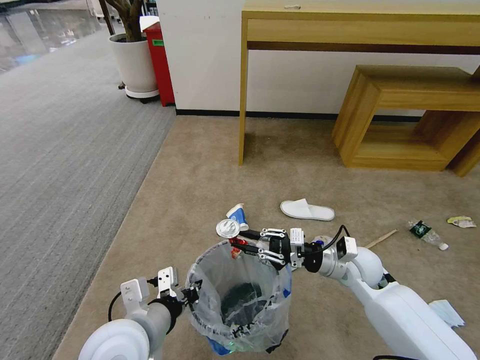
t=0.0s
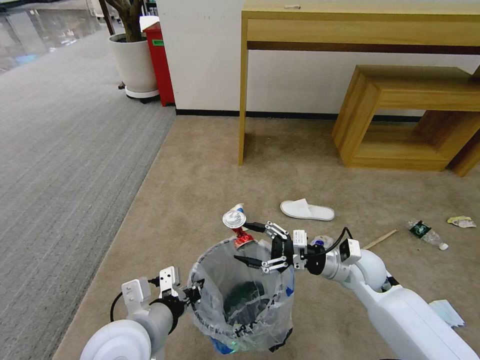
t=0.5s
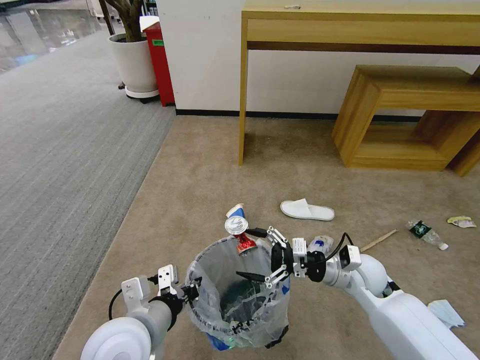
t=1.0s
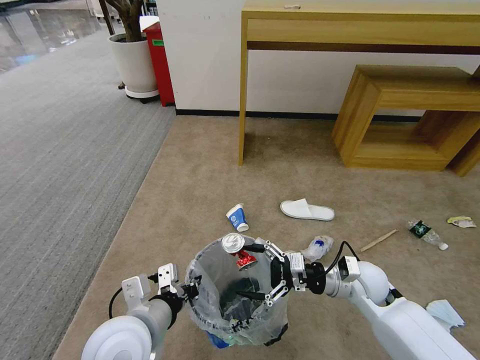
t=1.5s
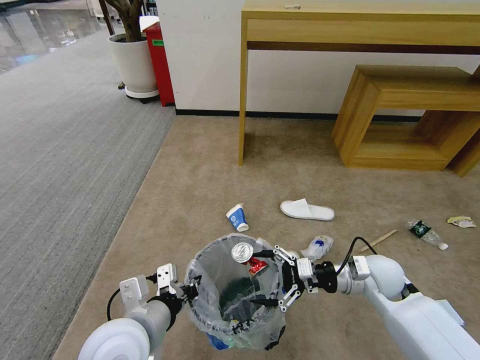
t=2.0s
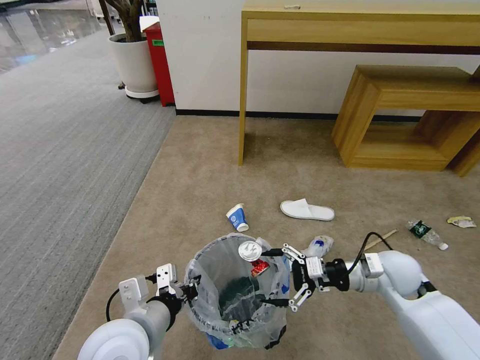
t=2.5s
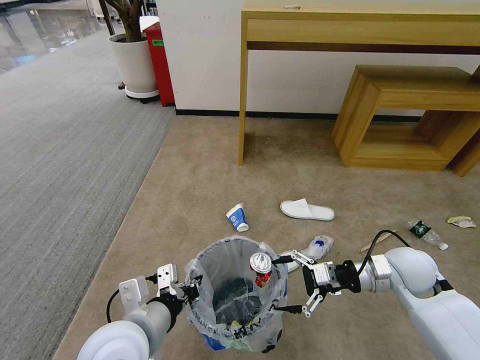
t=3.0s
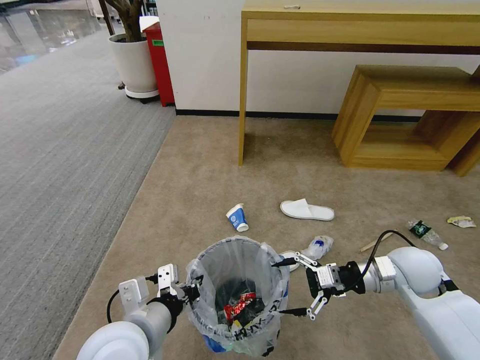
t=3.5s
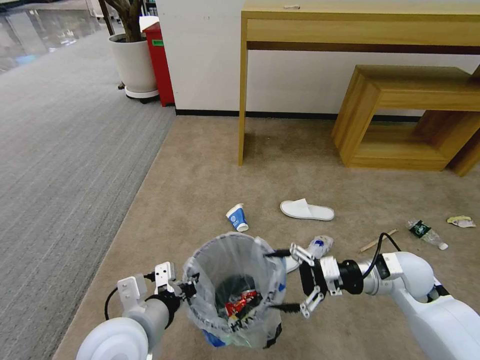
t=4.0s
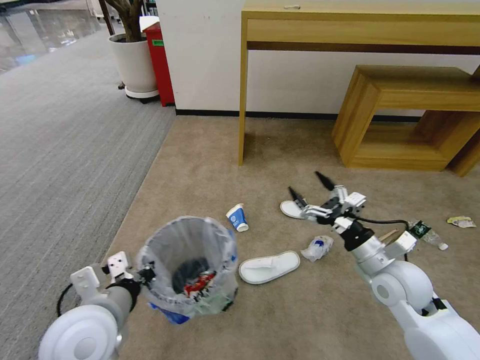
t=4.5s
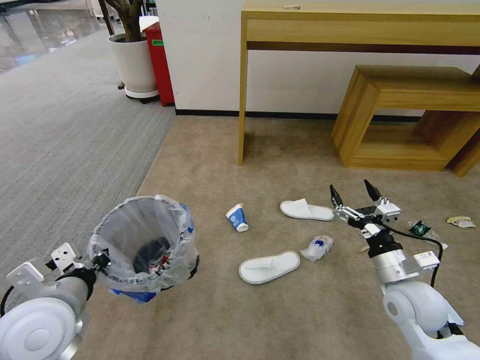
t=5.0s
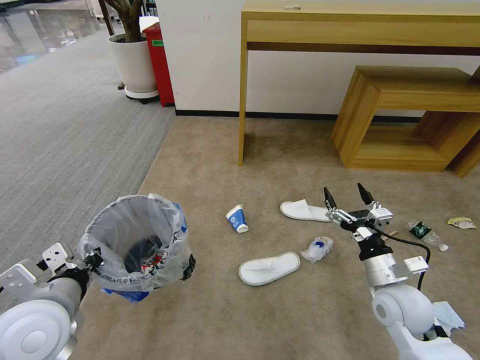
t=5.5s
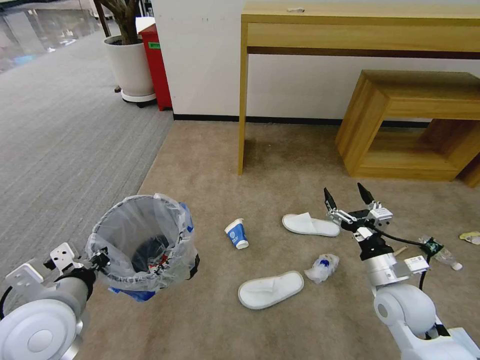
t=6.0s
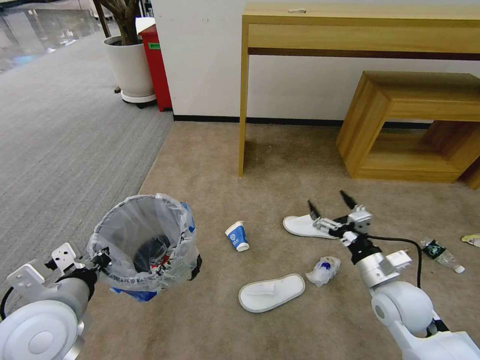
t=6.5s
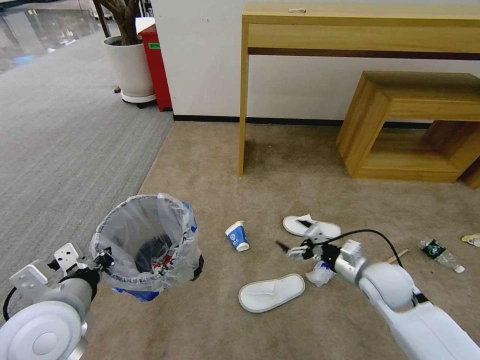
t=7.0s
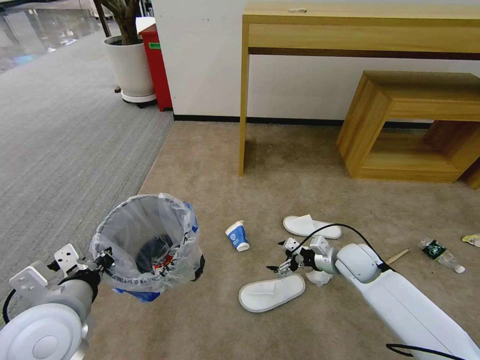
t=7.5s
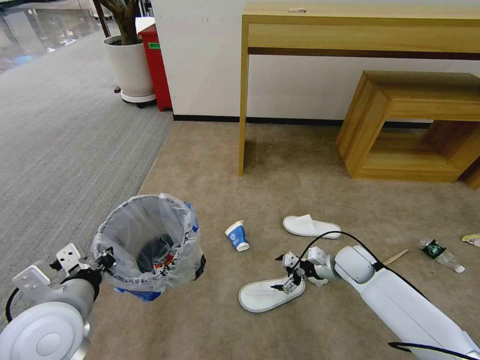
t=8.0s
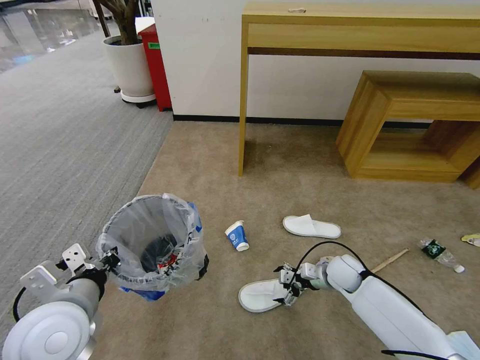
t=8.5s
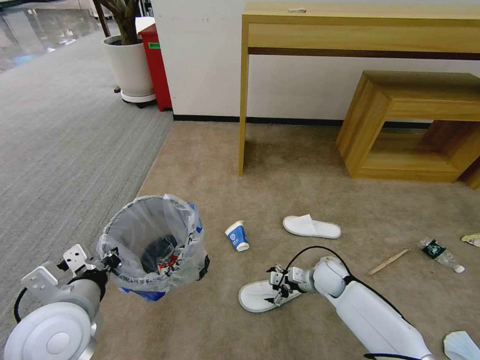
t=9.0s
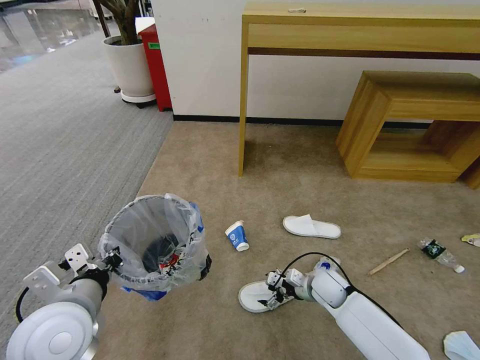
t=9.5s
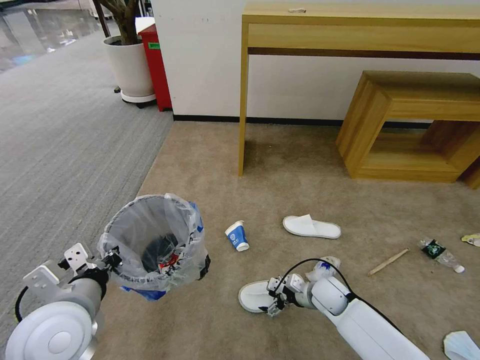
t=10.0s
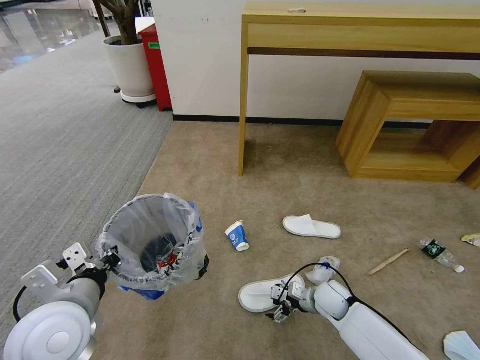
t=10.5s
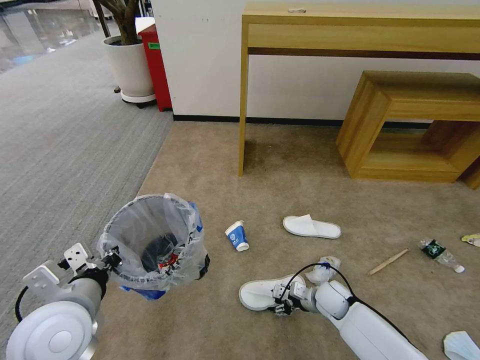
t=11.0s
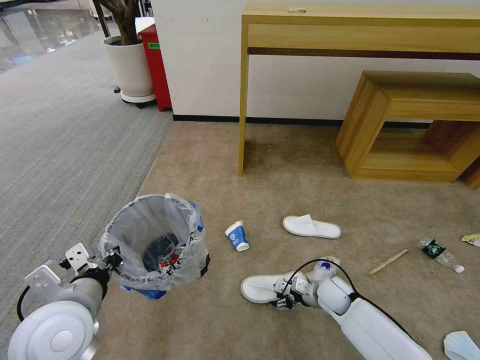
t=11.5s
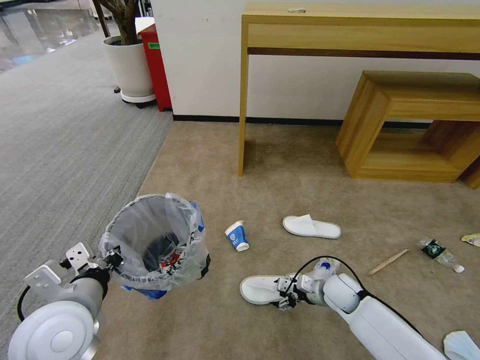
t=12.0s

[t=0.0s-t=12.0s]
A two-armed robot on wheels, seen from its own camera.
Task of the whole recording: Pick up the trash bin and place the garbage on the floor into it.
t=0.0s to t=2.0s: The right gripper opens.
t=2.0s to t=4.0s: The right gripper moves approximately 5 cm.
t=4.0s to t=6.0s: The left gripper goes about 10 cm to the left. The right gripper moves backward, some 5 cm.
t=6.0s to t=8.0s: The right gripper travels forward and downward by some 15 cm.
t=8.0s to t=10.0s: The right gripper travels downward, to the left and backward by some 10 cm.
t=10.0s to t=12.0s: There are only small adjustments of the grippers.

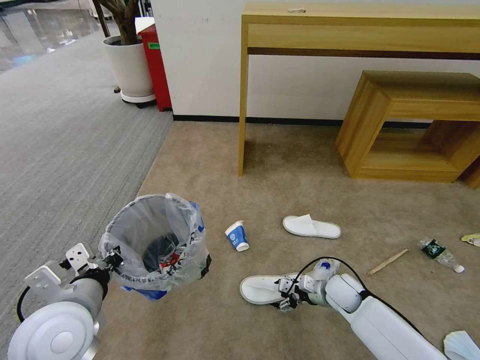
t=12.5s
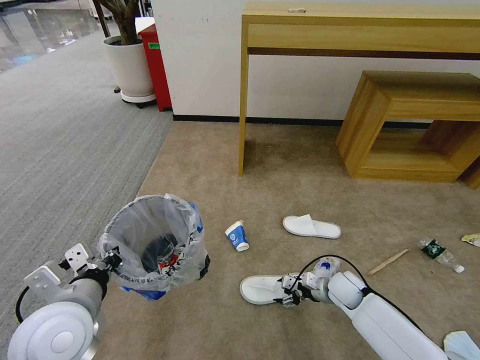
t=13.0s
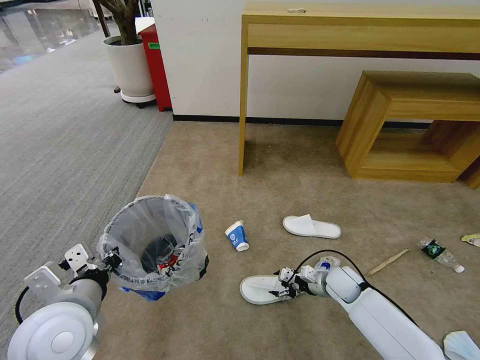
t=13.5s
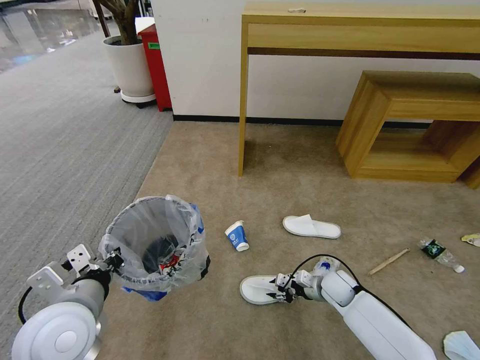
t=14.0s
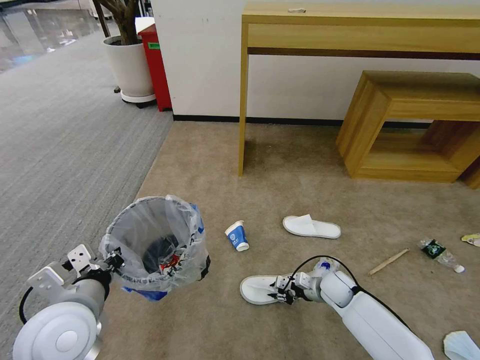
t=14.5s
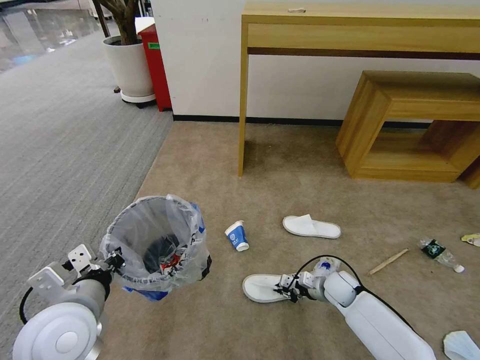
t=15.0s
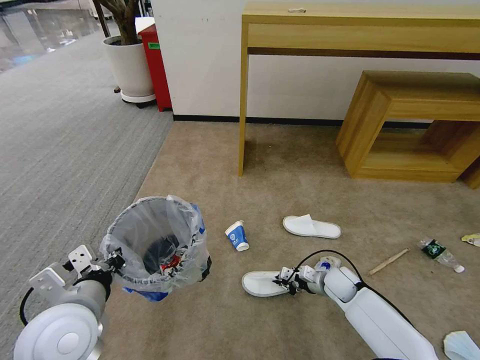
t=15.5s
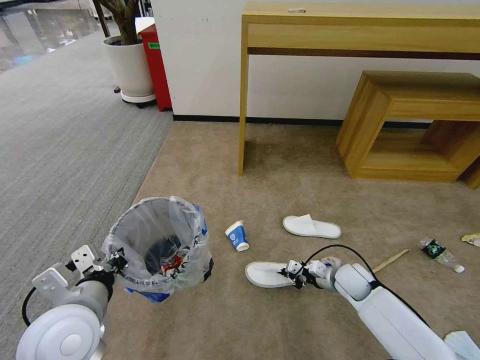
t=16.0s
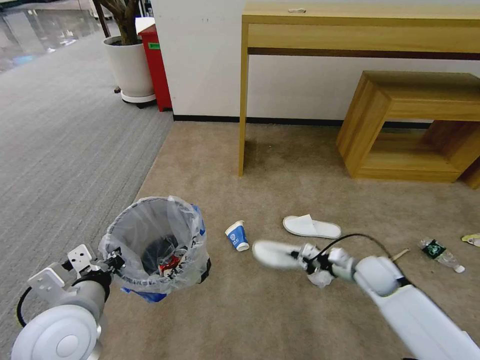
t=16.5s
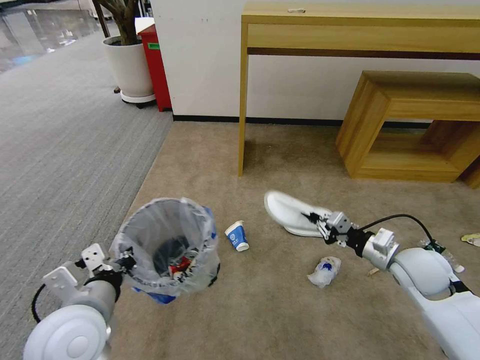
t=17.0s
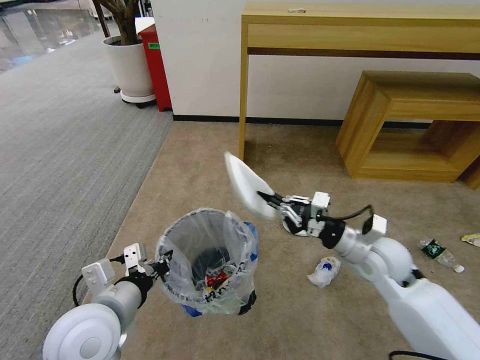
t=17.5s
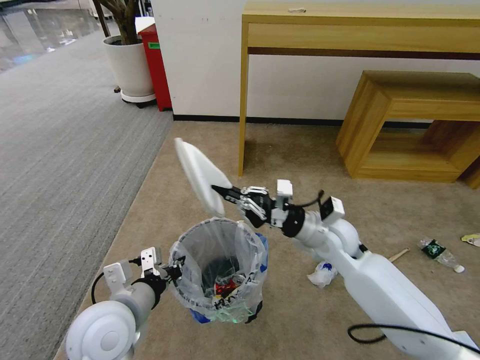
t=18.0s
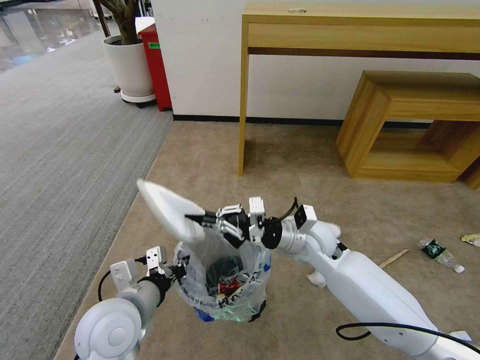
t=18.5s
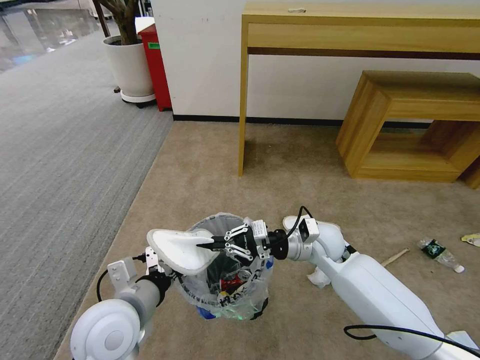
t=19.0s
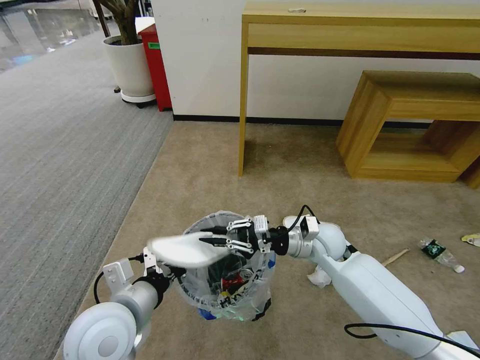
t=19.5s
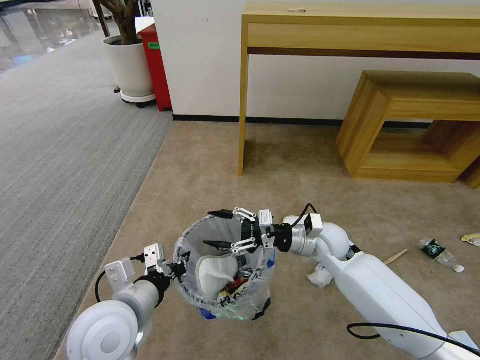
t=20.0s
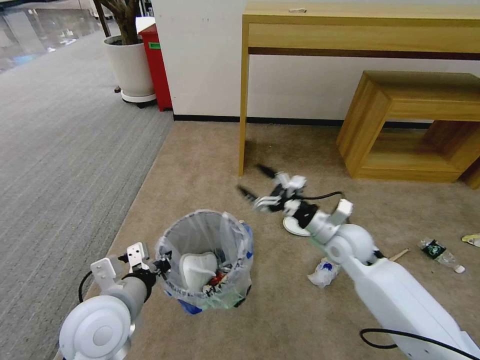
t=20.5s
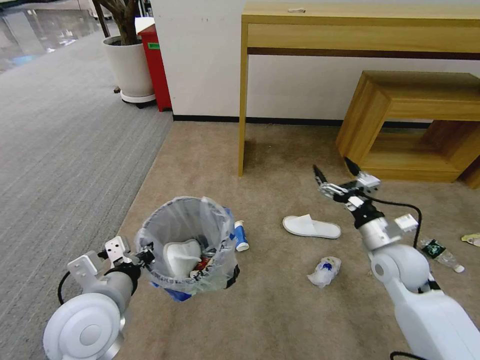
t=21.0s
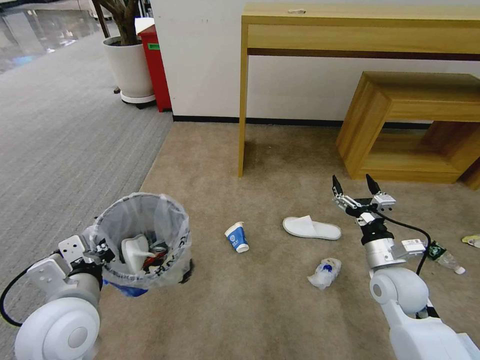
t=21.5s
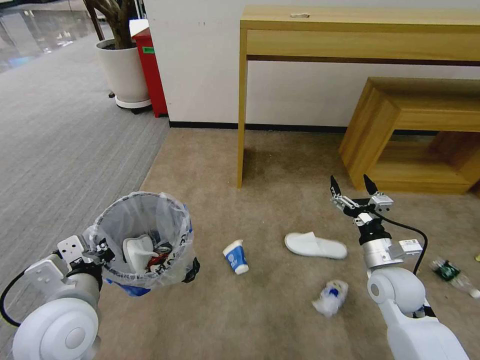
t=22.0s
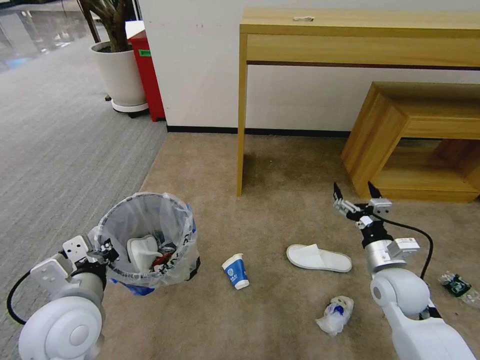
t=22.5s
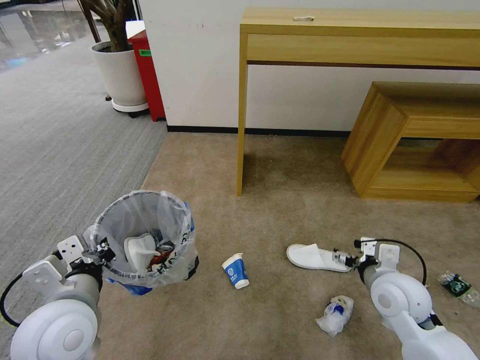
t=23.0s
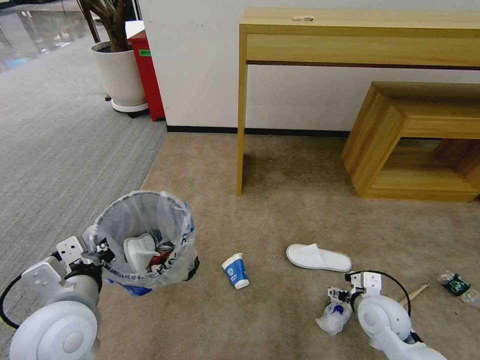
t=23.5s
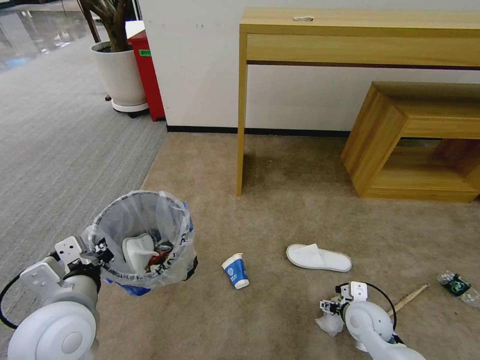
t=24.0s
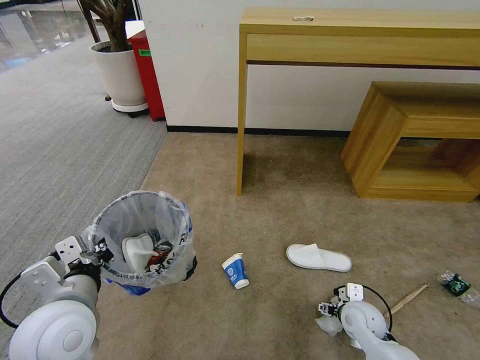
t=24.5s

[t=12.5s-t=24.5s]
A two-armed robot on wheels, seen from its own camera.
Task of the whole recording: Pick up the trash bin and place the garbage on the floor into it.
t=12.5s to t=14.5s: The right gripper closes.
t=14.5s to t=16.5s: The right gripper travels upward and to the right by approximately 10 cm.
t=16.5s to t=18.5s: The right gripper shifts approximately 20 cm to the left and upward; the left gripper shifts by some 5 cm.
t=18.5s to t=20.5s: The right gripper heads to the right, covering some 10 cm, and opens.
t=20.5s to t=22.5s: The right gripper shifts roughly 15 cm to the right and backward.
t=22.5s to t=24.5s: The right gripper heads downward, covering about 15 cm.

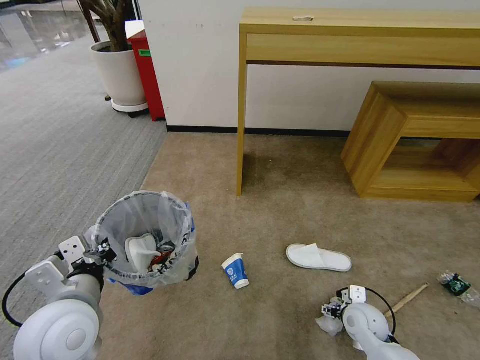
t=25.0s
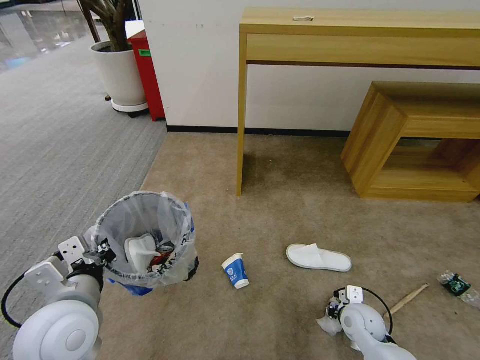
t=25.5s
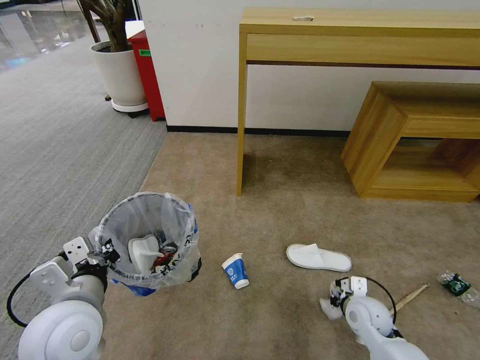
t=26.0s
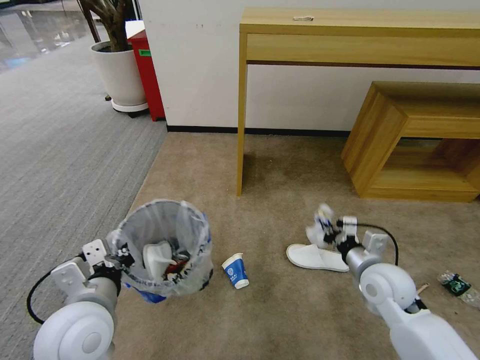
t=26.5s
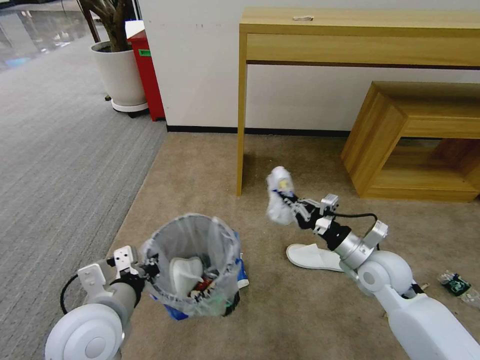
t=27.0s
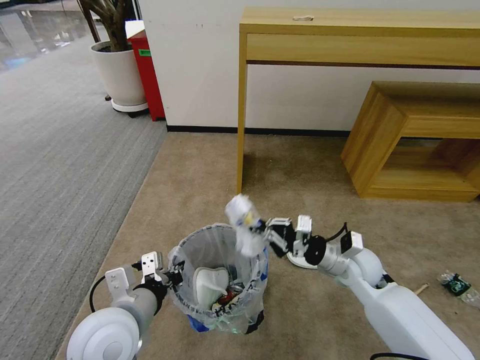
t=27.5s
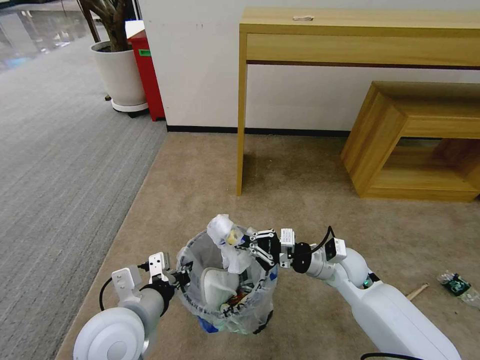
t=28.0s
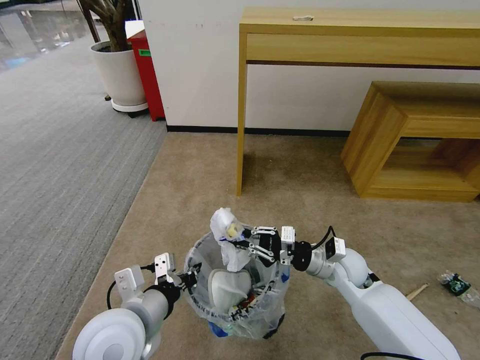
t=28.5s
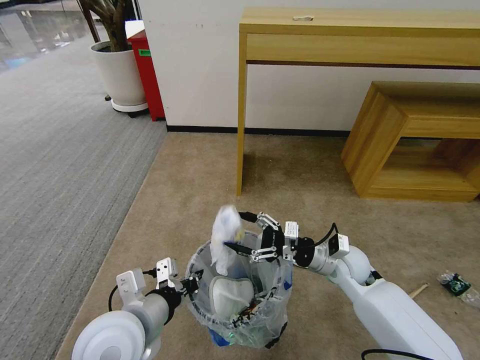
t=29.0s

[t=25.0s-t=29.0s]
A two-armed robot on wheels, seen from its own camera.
Task of the whole recording: Pick up the trash bin and place the garbage on the floor into it.
t=25.0s to t=27.0s: The right gripper shifts about 15 cm upward, and closes up.
t=27.0s to t=29.0s: The right gripper is displaced to the left by roughly 5 cm, and opens.
